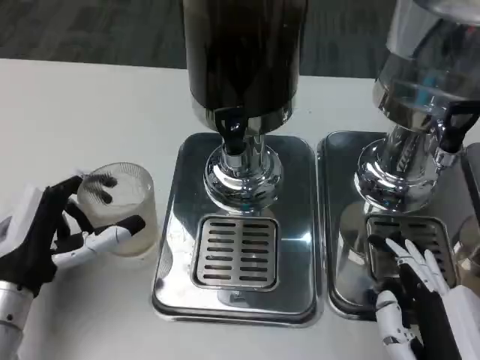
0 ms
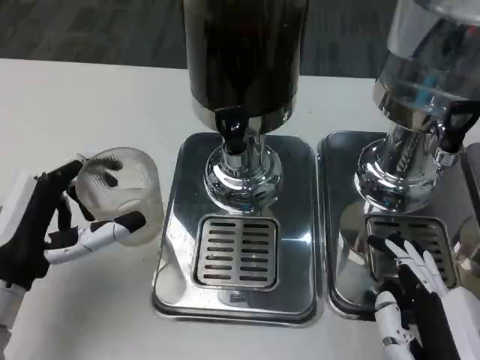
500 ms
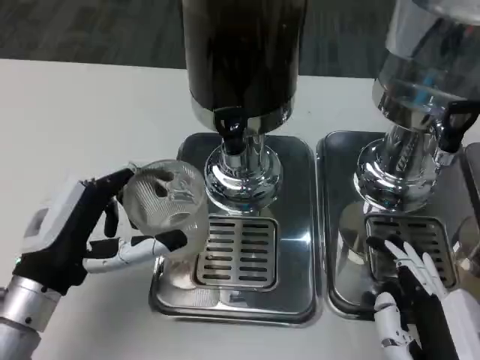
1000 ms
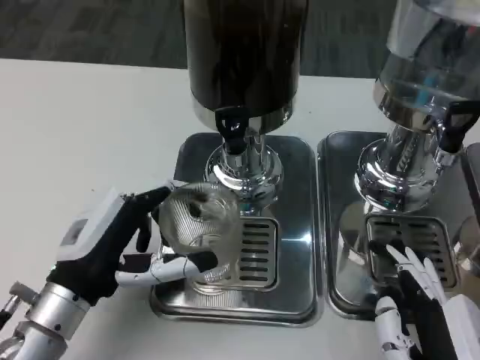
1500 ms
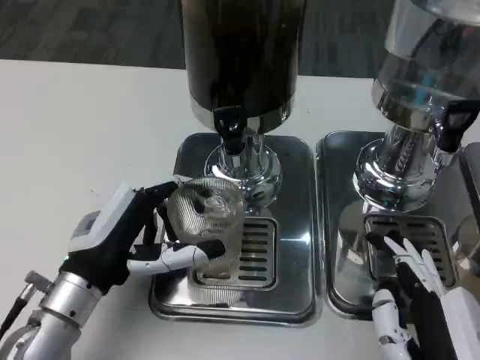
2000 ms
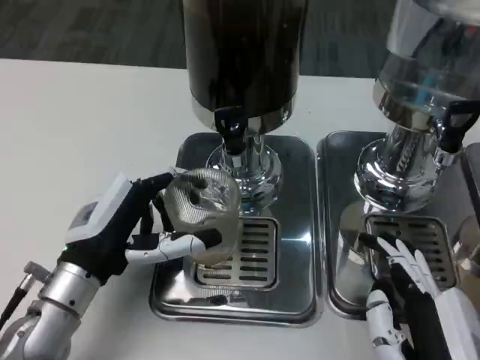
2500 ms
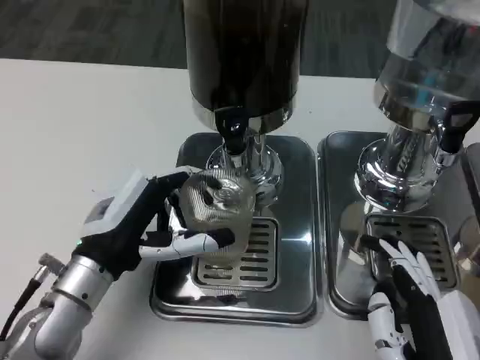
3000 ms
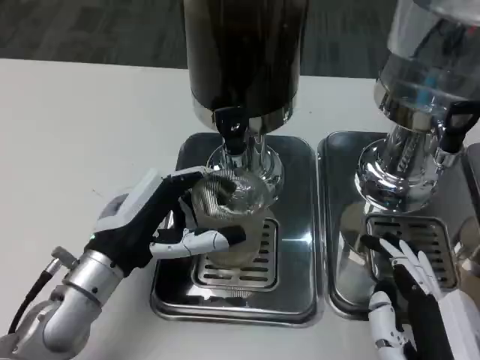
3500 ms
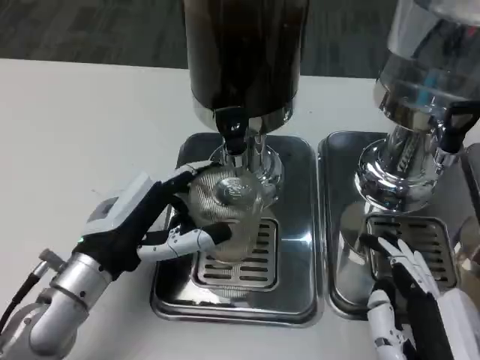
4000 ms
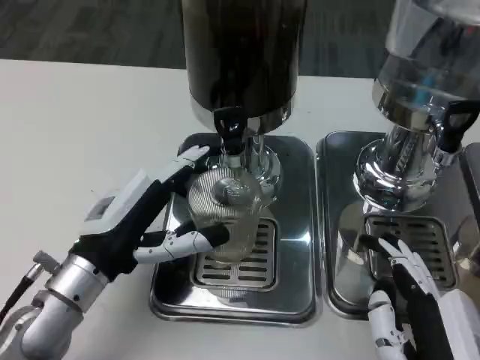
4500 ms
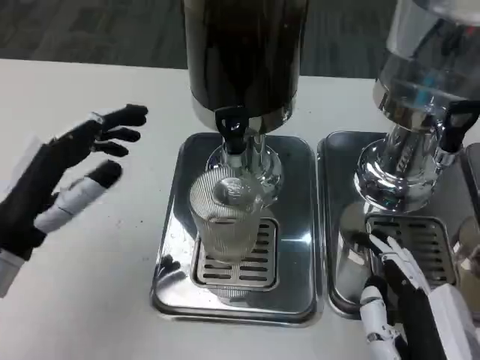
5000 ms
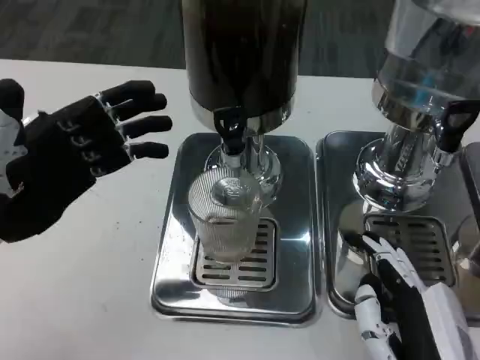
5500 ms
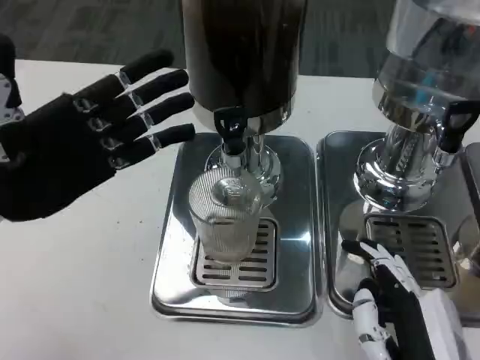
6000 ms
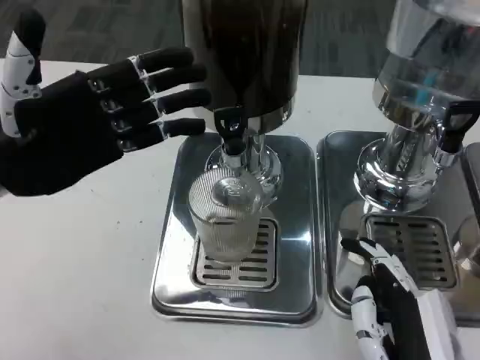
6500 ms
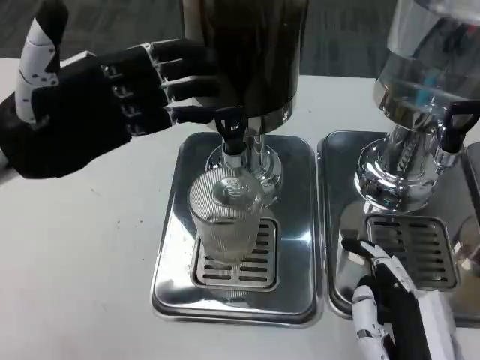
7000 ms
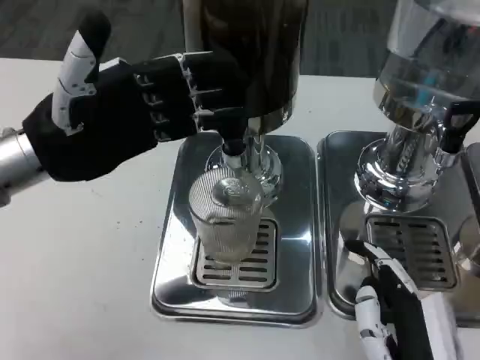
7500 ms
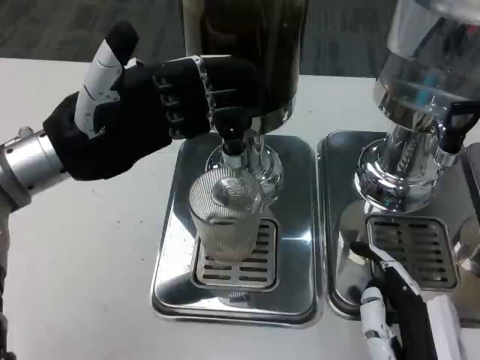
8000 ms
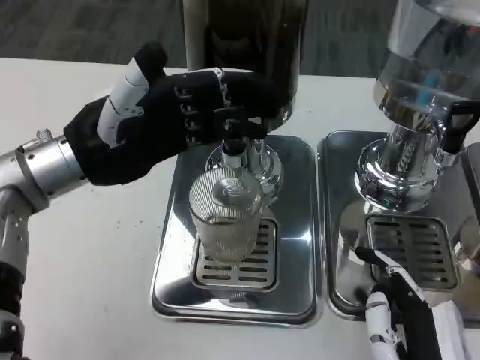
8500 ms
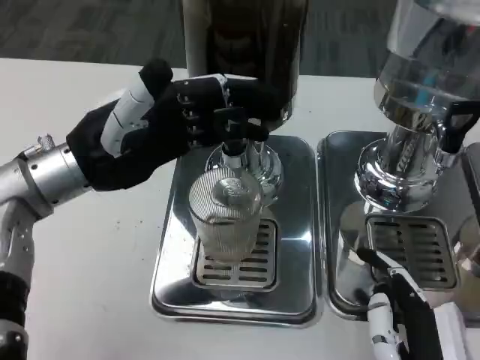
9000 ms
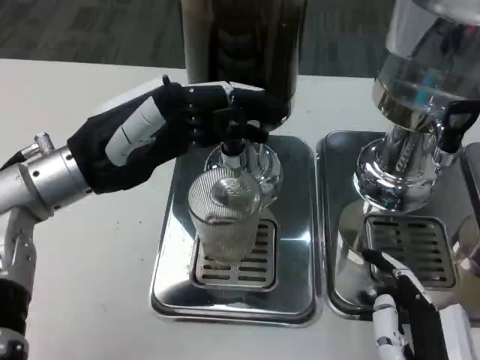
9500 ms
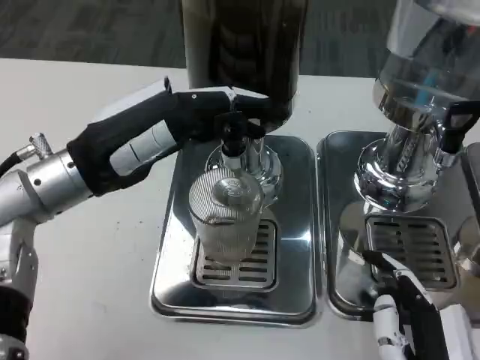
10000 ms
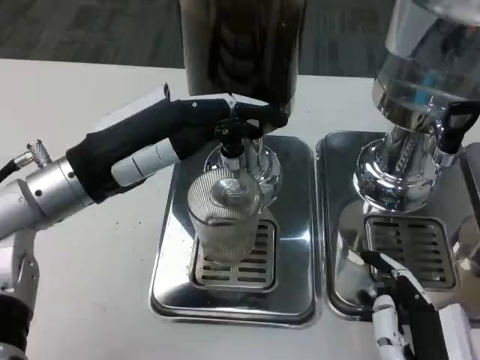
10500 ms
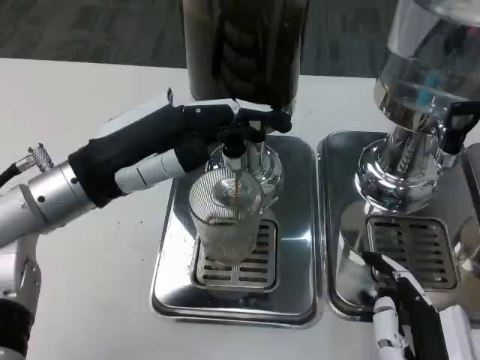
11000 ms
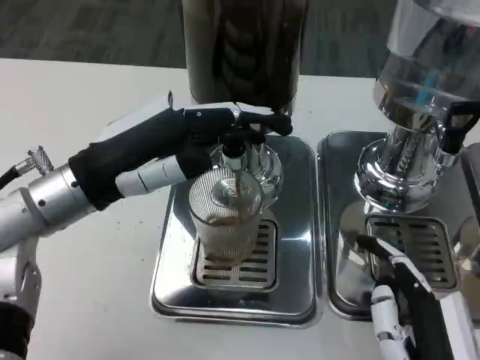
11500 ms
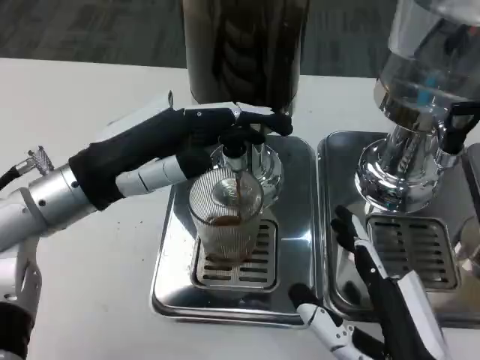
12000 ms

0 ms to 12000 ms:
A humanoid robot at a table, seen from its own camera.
Task of the whole recording: Grasp the cup under the faucet to collect the drink, then remove the cup.
0 ms to 2000 ms: The left hand shifts by about 5 cm.
2000 ms to 4000 ms: The hands stay close to where they were, moving slightly.
4000 ms to 6000 ms: The left hand moves upward and to the left, roughly 15 cm.
6000 ms to 8000 ms: The left hand goes about 5 cm to the right.

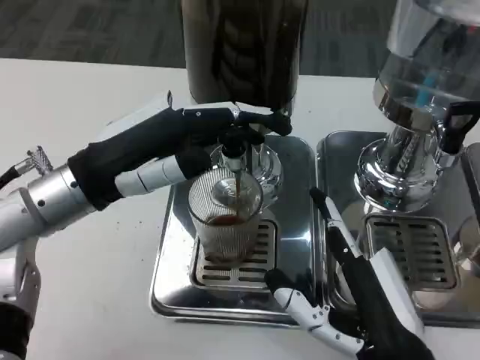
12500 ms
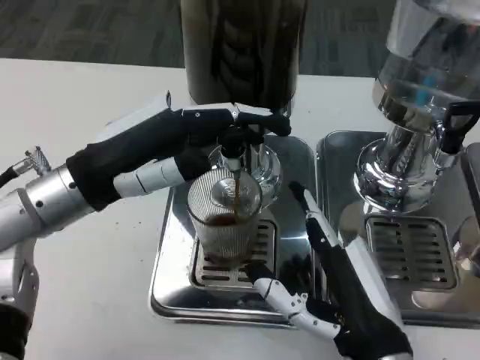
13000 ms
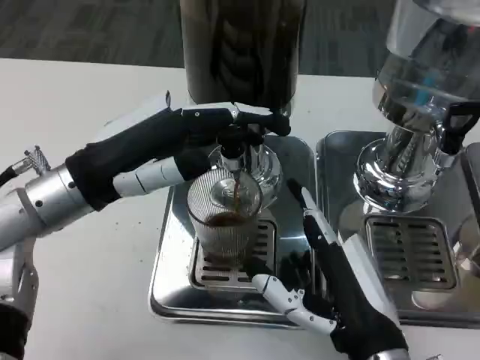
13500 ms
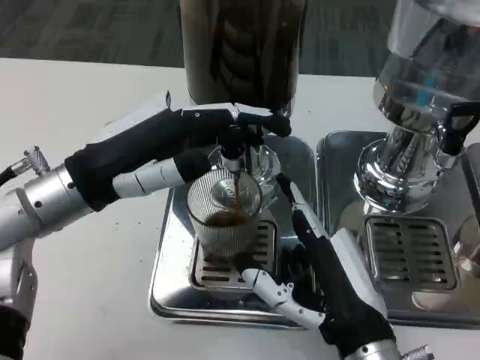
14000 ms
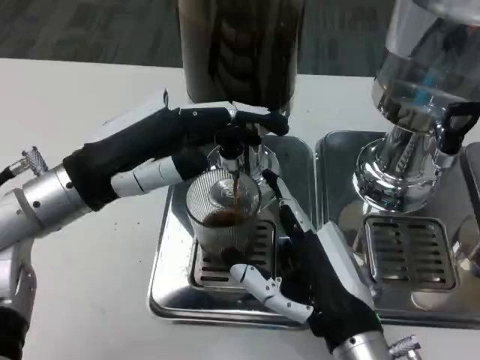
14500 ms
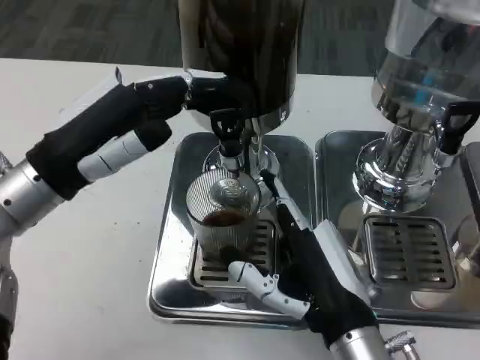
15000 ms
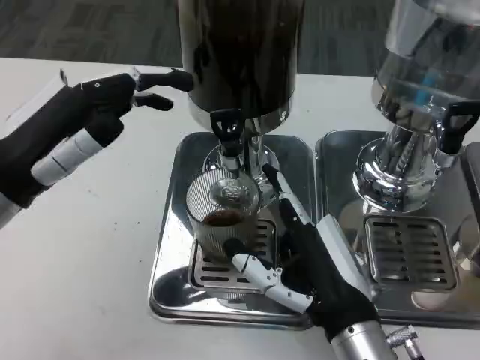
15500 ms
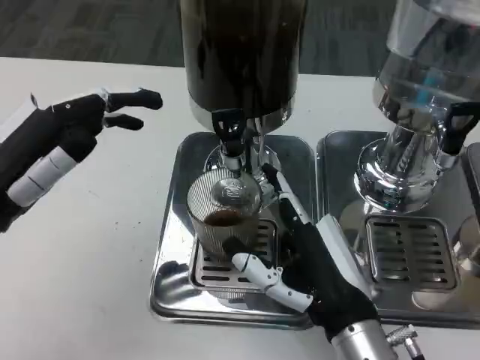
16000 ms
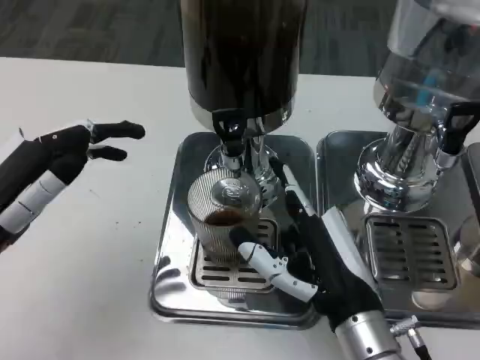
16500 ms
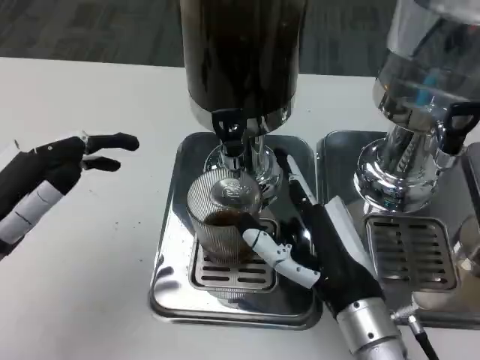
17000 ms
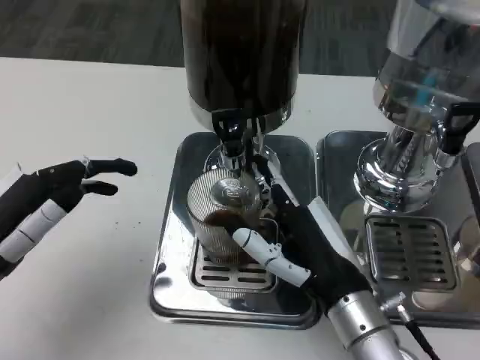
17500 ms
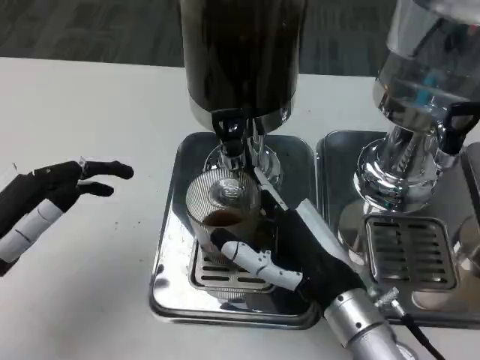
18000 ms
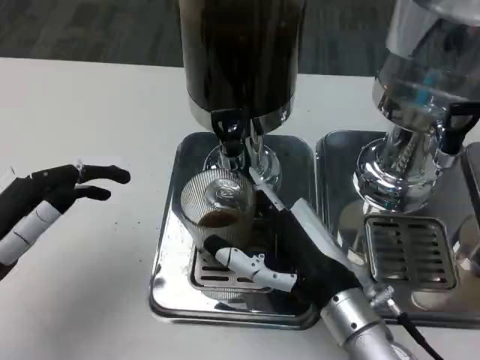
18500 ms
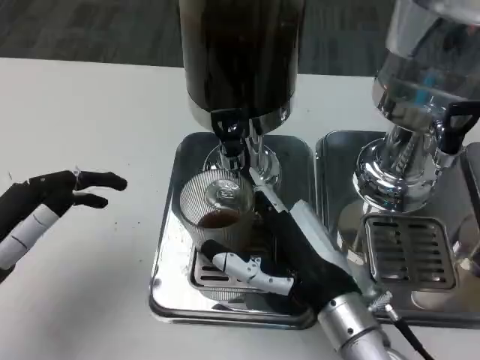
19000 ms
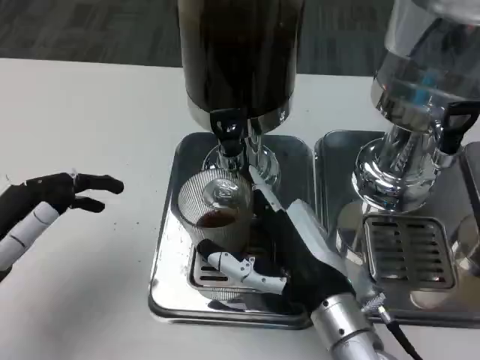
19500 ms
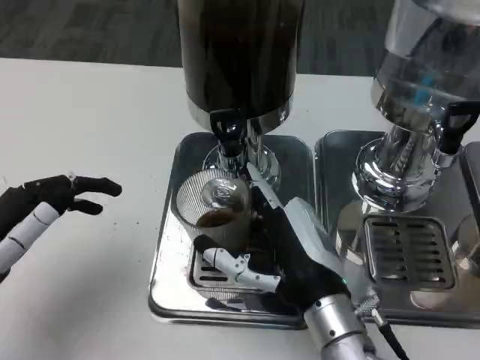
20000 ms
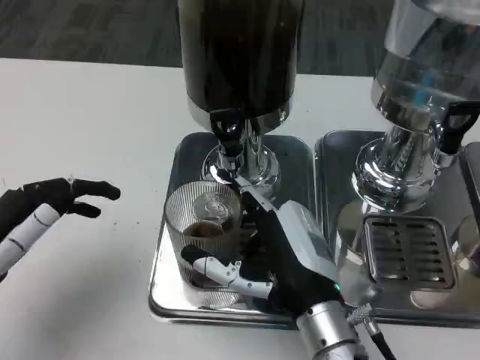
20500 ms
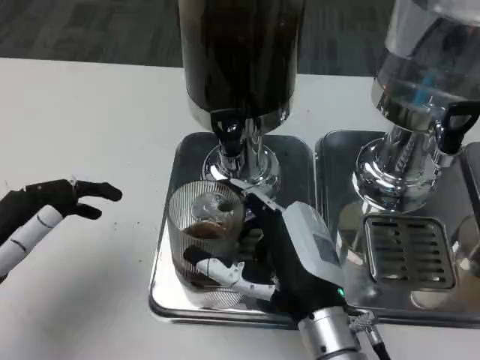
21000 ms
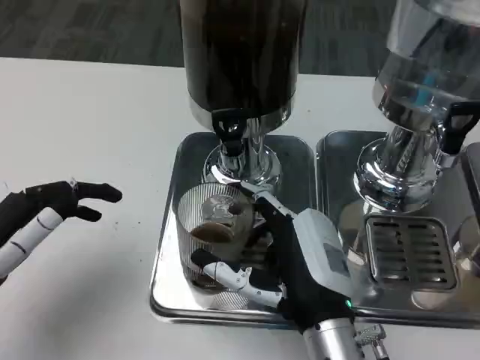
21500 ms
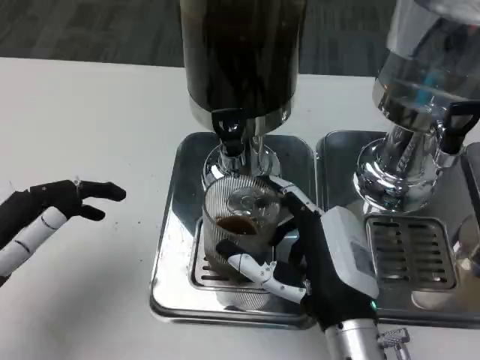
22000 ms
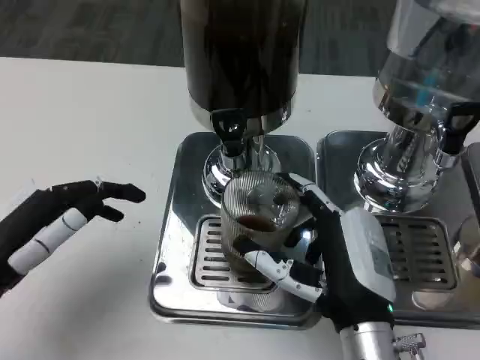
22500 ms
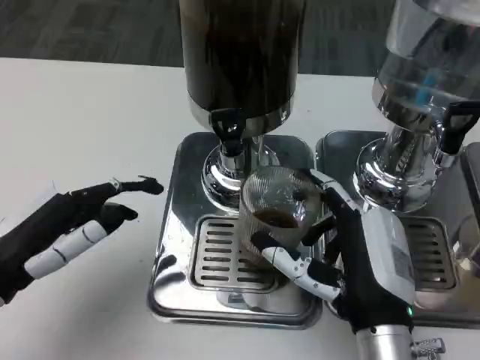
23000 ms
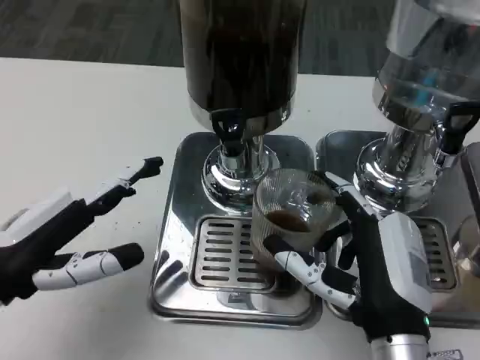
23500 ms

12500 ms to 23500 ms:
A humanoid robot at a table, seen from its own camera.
Task of the whole recording: Grasp the cup under the faucet to collect the drink, then remove the cup.
12500 ms to 14500 ms: The right hand shifts by about 5 cm.
14500 ms to 16000 ms: The left hand shifts some 5 cm to the left.
16000 ms to 18000 ms: The left hand ends up about 5 cm from where it was.
18000 ms to 21500 ms: The hands stay close to where they were, moving slightly.
21500 ms to 23500 ms: The right hand moves about 5 cm.

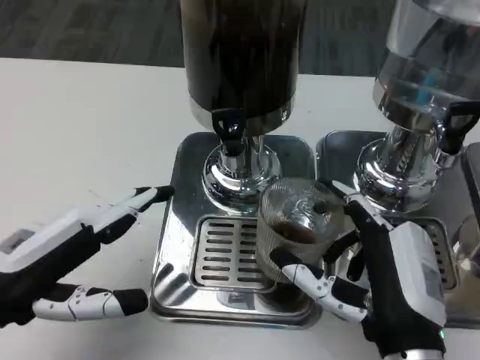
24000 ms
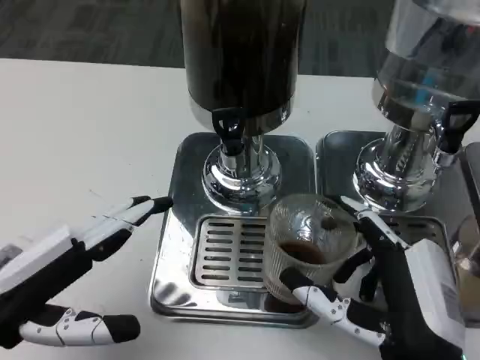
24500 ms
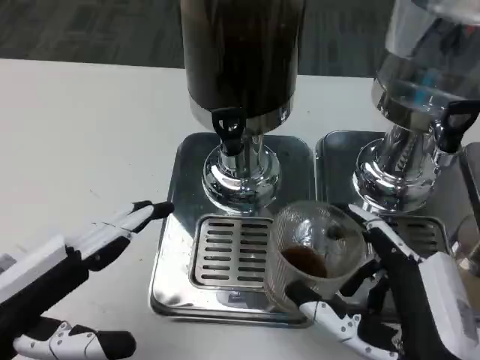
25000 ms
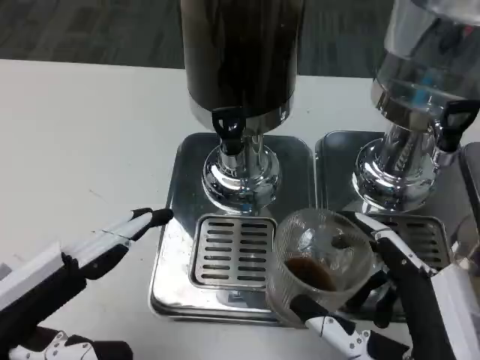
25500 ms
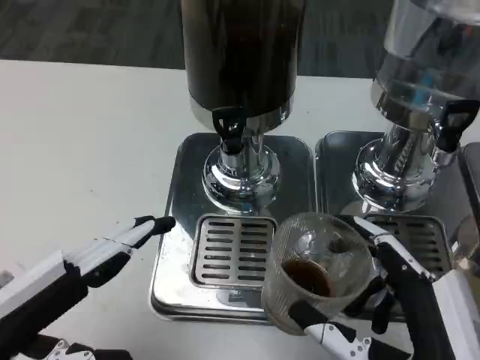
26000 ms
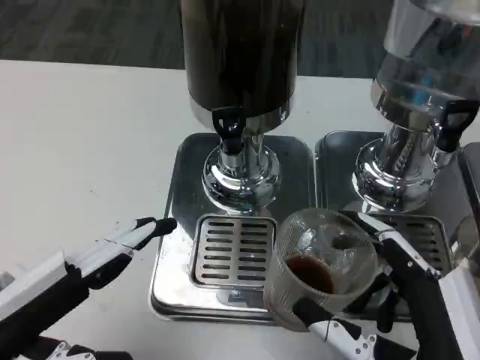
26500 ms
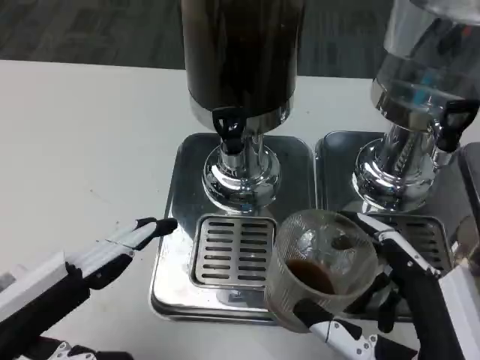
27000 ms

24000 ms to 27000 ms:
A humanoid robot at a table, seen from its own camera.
Task of the whole recording: Grasp the cup under the faucet to collect the drink, then remove the cup.
24000 ms to 25500 ms: The right hand goes about 5 cm backward.
25500 ms to 27000 ms: Both hands stay about where they are.
